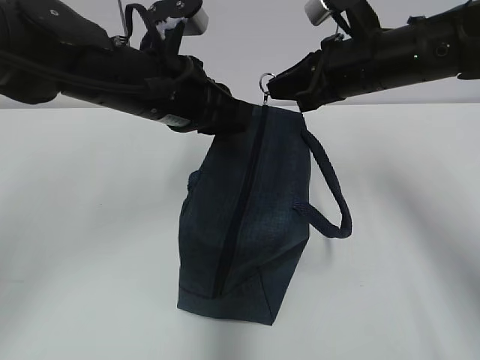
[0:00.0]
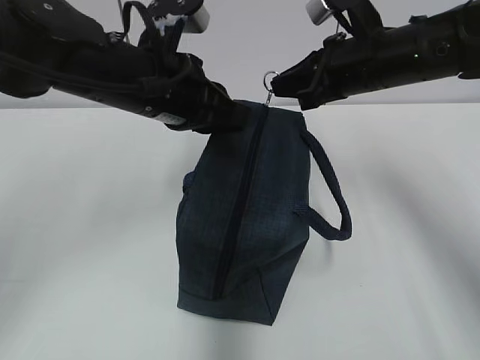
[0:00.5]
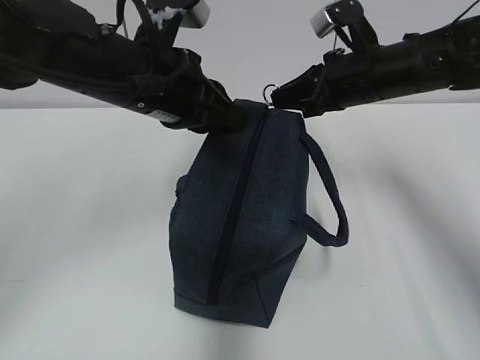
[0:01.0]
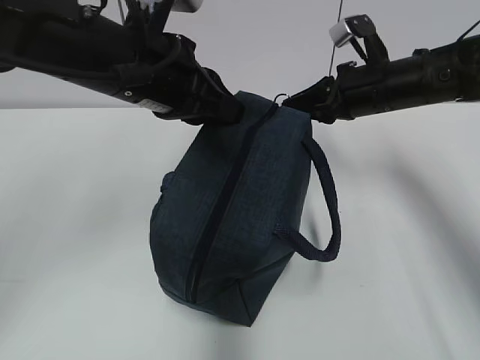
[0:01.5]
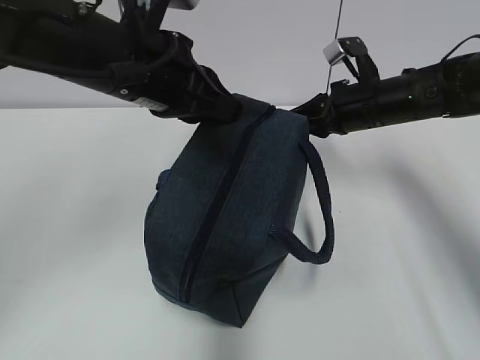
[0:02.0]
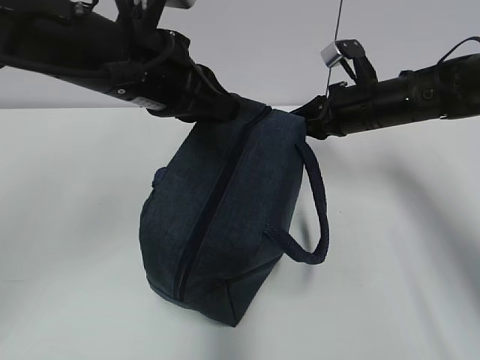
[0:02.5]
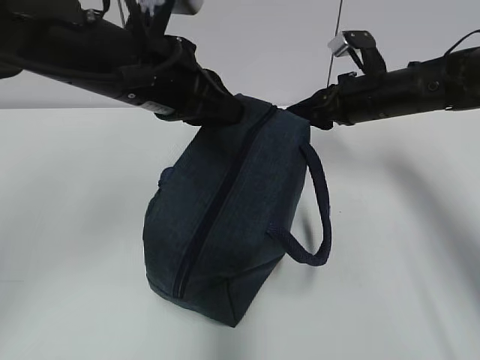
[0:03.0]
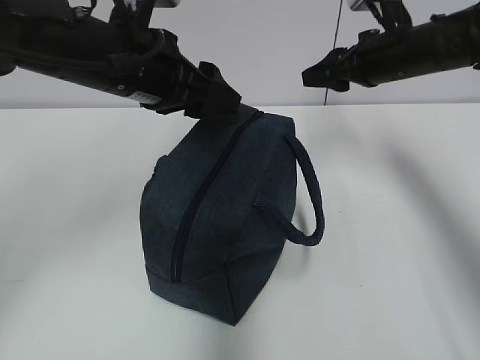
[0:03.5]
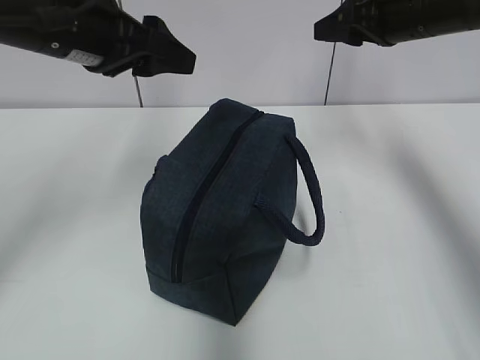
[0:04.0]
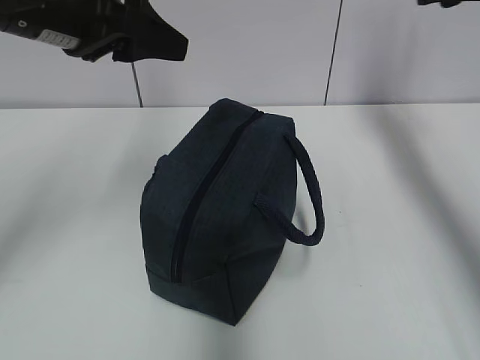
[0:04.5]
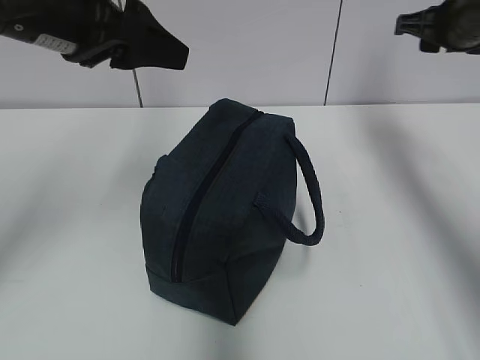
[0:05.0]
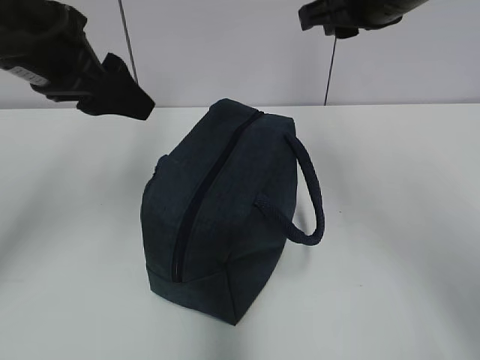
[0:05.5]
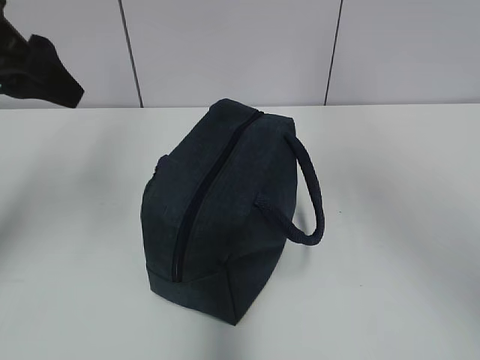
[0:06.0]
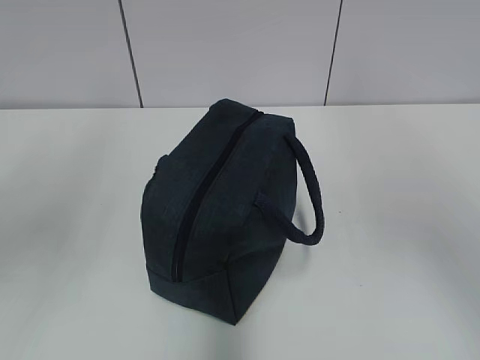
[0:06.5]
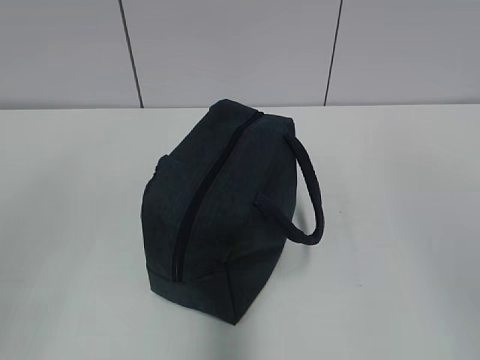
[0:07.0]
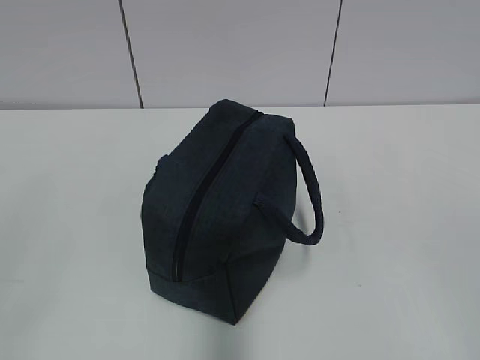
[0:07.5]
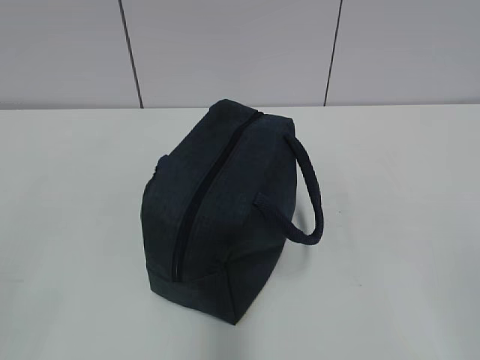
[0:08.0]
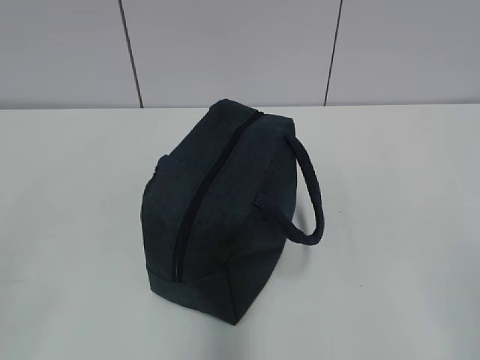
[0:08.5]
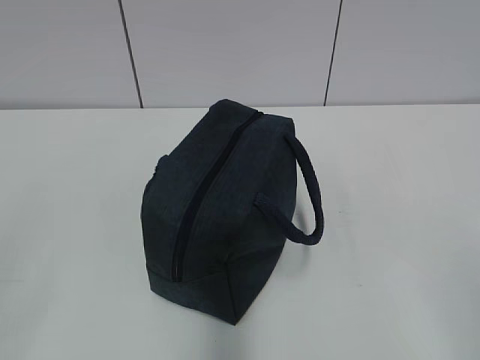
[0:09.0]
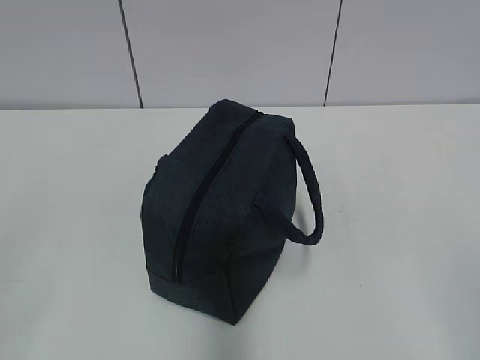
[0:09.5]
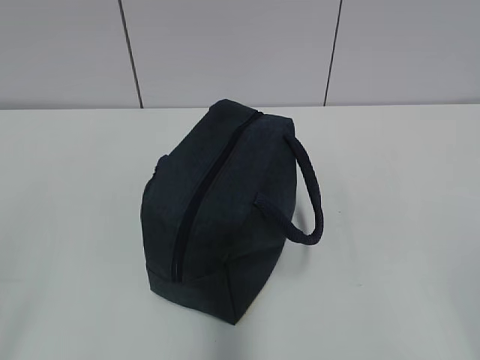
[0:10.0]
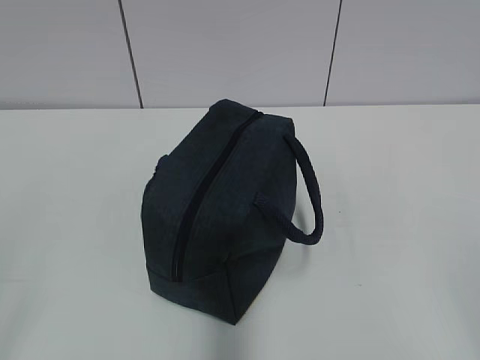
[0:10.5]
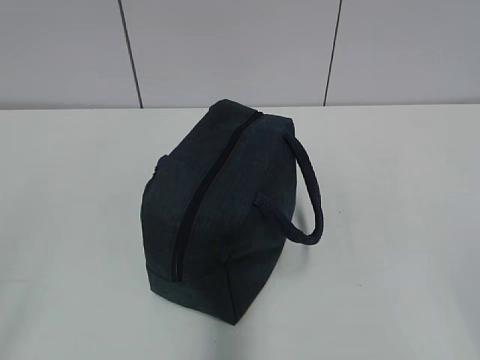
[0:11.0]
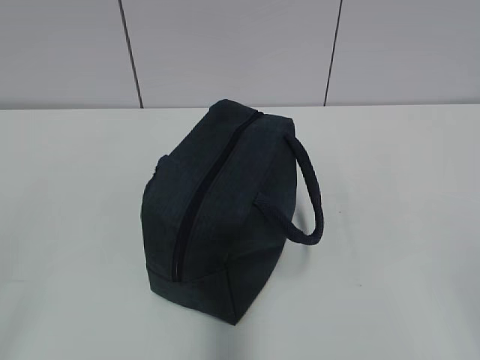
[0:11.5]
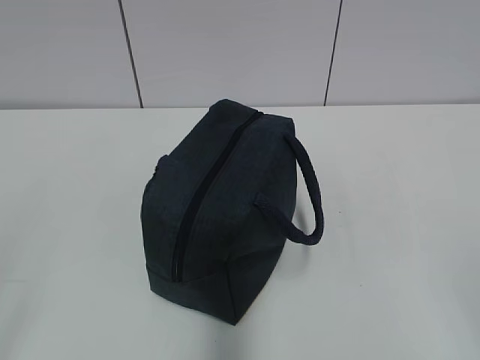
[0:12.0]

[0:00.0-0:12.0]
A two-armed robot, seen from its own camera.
Step, 0:00.0 to 0:02.5: Pull the zipper with your right hand.
0:00.0 to 0:02.0: The right gripper travels downward by some 10 cm.
0:02.0 to 0:04.0: The left gripper goes about 5 cm to the left, and opens its fingers. Meanwhile the right gripper is displaced upward by about 10 cm, and opens its fingers.
0:04.0 to 0:06.0: The left gripper moves to the left, roughly 5 cm, while the right gripper moves backward and upward, approximately 20 cm.
0:06.0 to 0:08.0: The left gripper travels backward by roughly 30 cm.

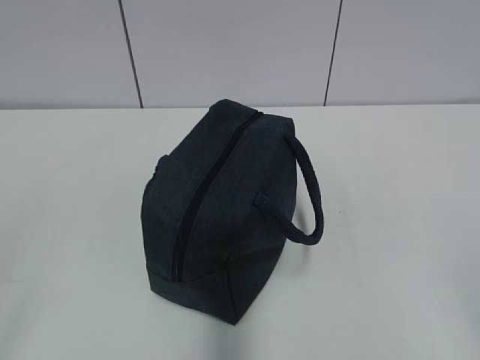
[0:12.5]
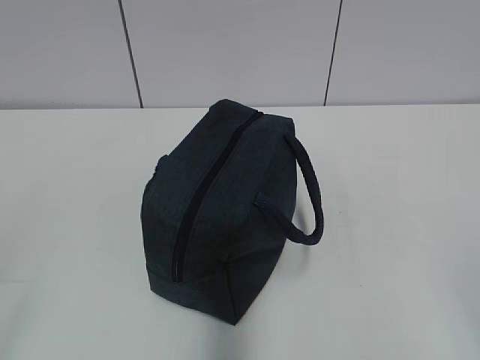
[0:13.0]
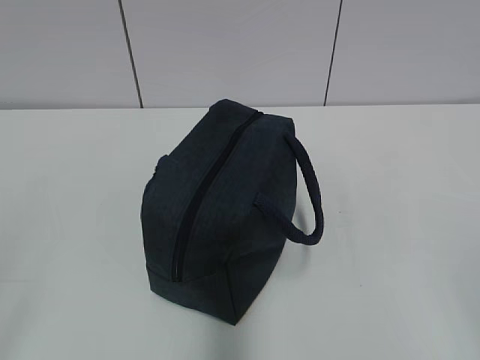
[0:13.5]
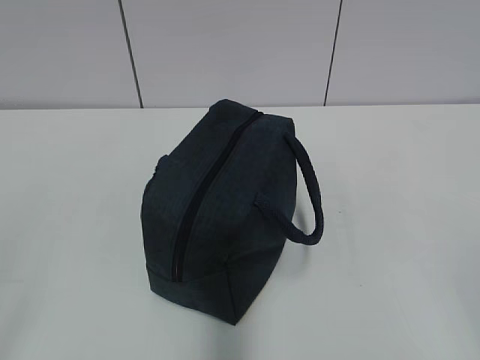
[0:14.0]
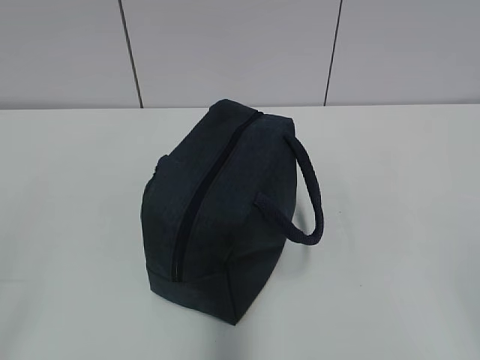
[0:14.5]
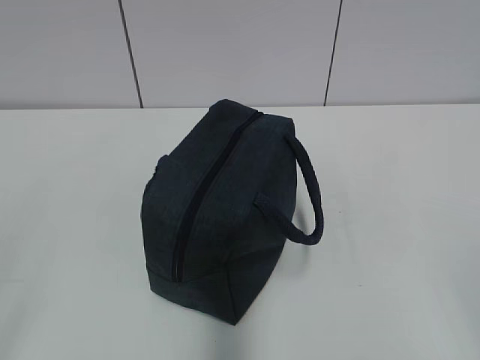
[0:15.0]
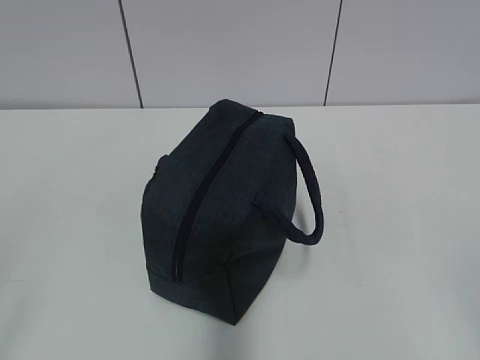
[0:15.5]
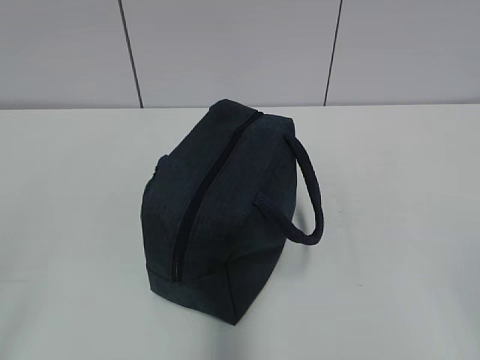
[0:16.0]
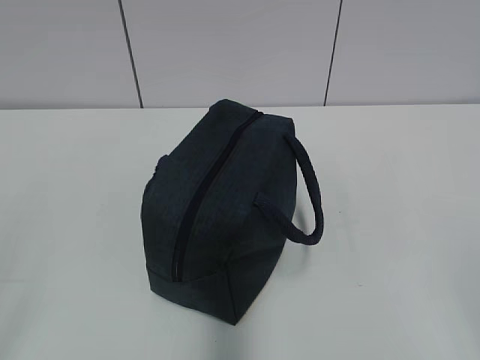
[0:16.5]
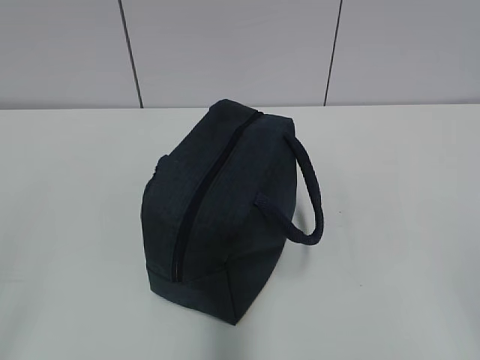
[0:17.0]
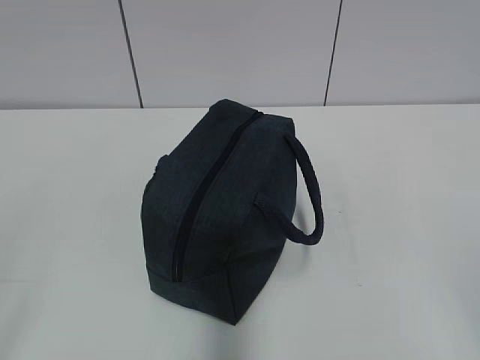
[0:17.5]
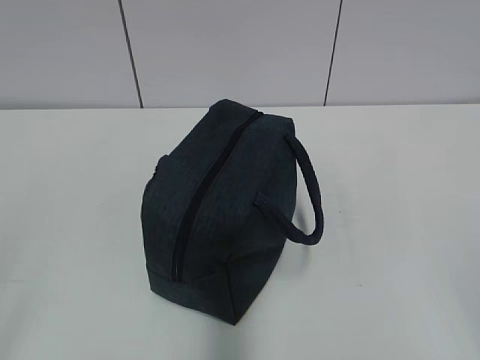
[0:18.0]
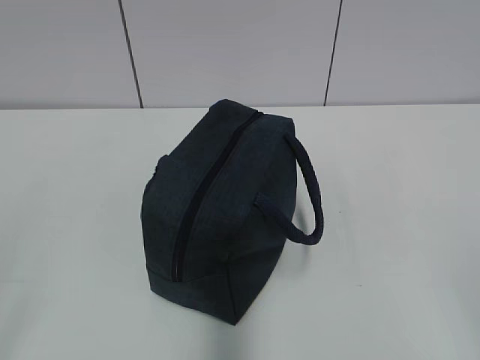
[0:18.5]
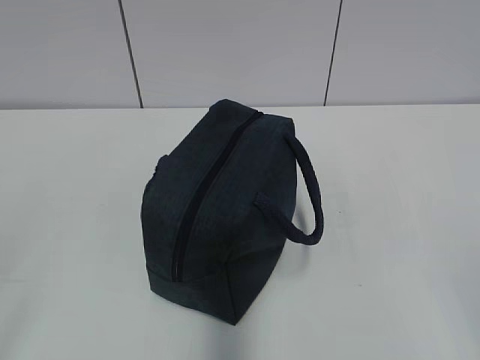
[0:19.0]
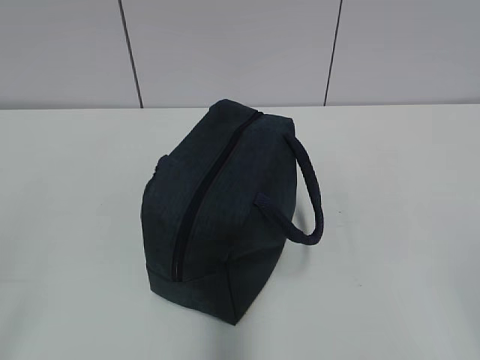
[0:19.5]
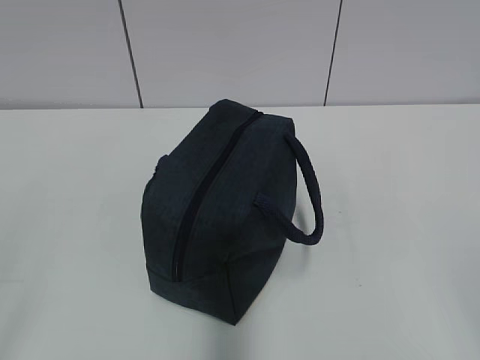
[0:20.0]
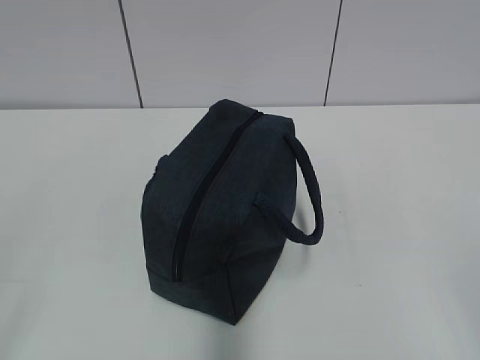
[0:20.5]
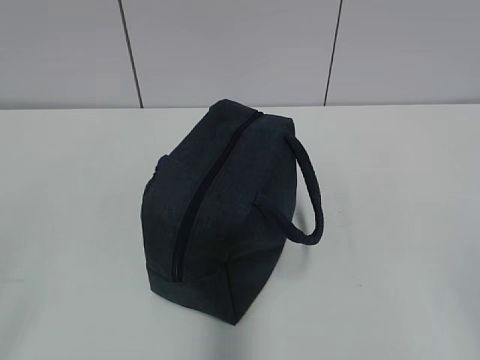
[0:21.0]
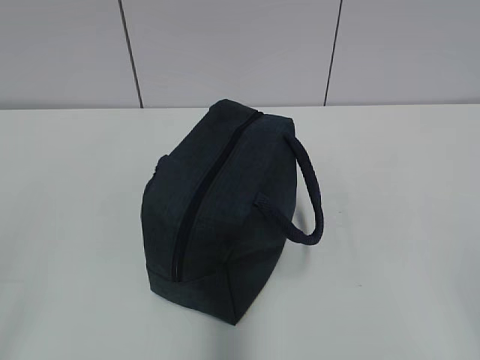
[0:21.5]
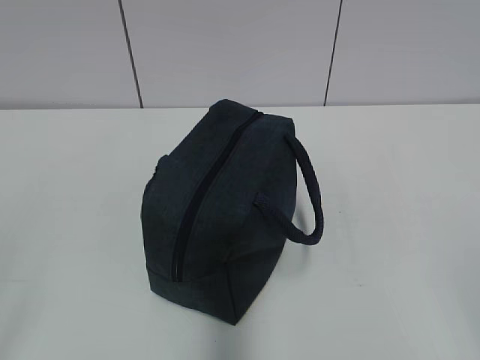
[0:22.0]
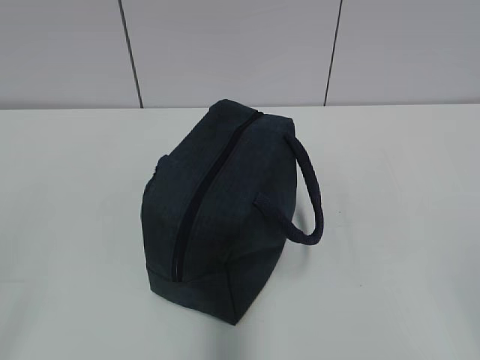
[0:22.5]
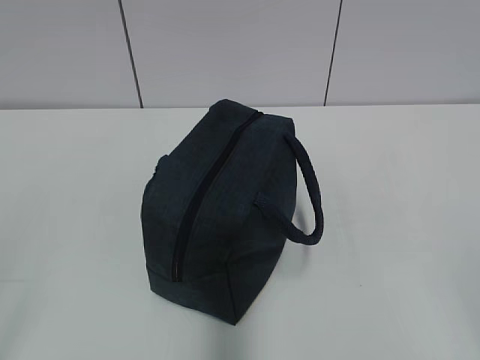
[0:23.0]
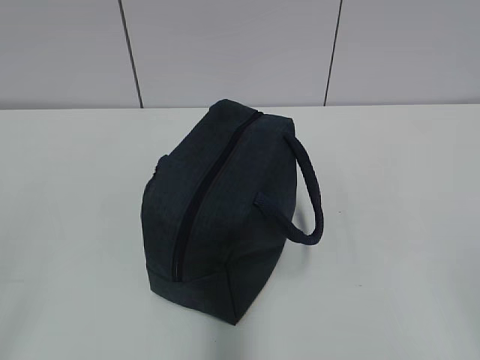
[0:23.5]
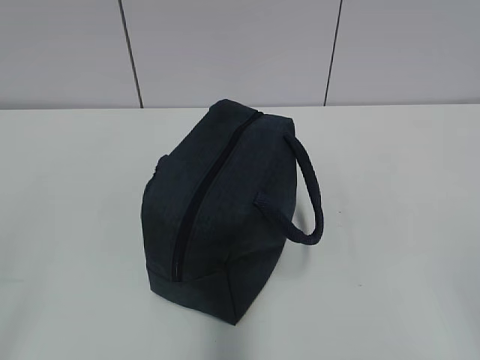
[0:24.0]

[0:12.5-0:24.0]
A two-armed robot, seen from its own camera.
0:12.5 to 0:24.0: Both grippers stay put.

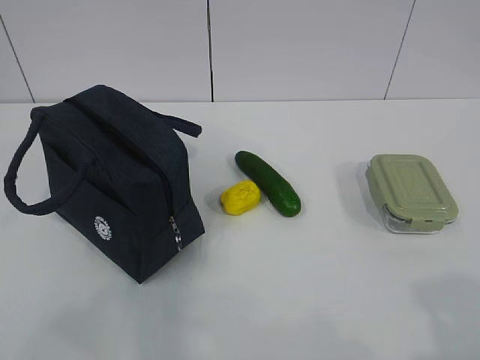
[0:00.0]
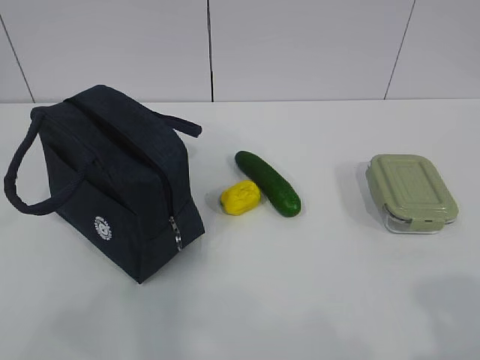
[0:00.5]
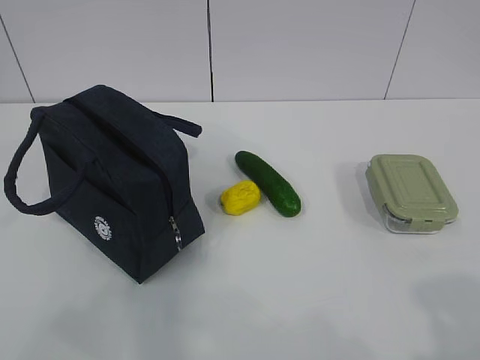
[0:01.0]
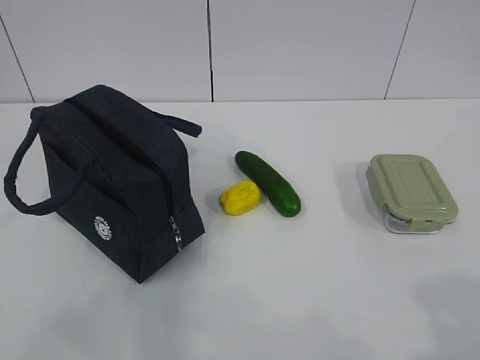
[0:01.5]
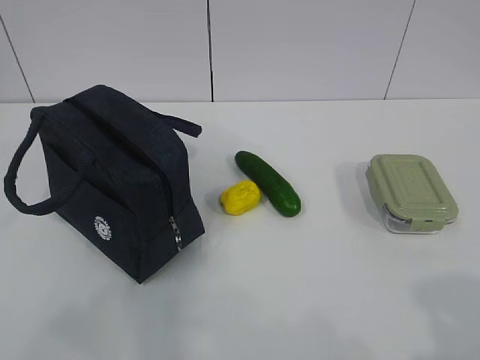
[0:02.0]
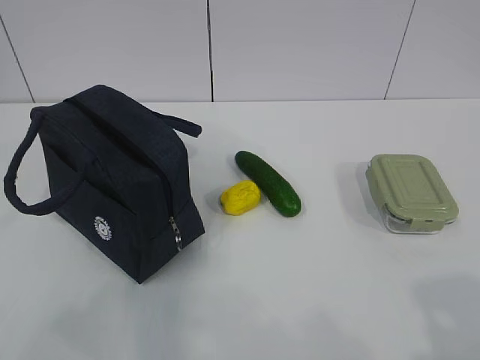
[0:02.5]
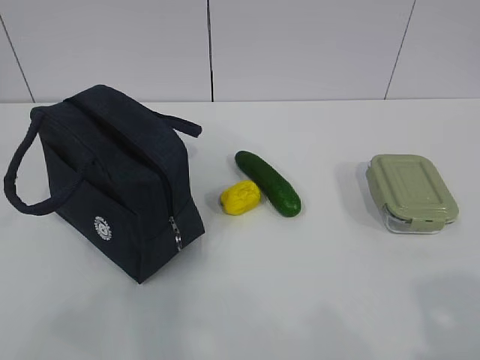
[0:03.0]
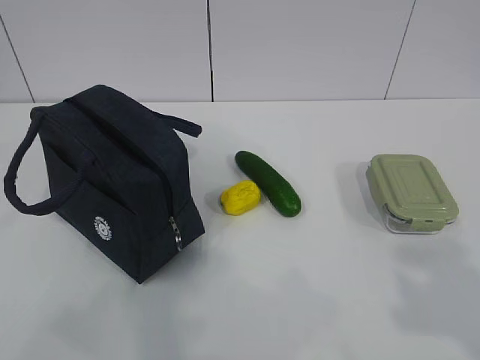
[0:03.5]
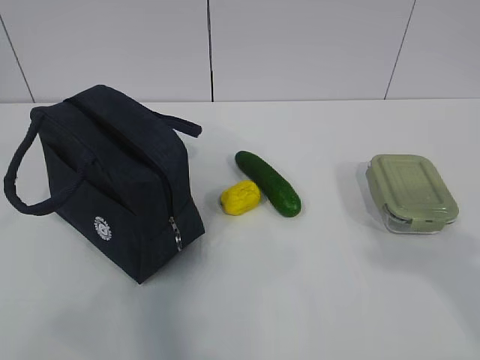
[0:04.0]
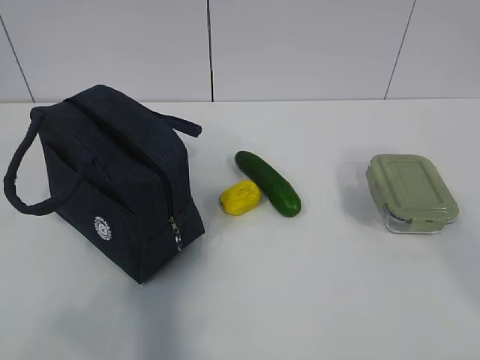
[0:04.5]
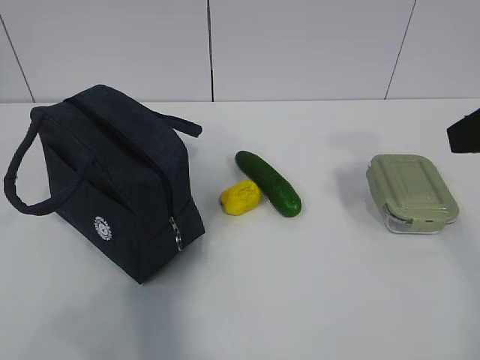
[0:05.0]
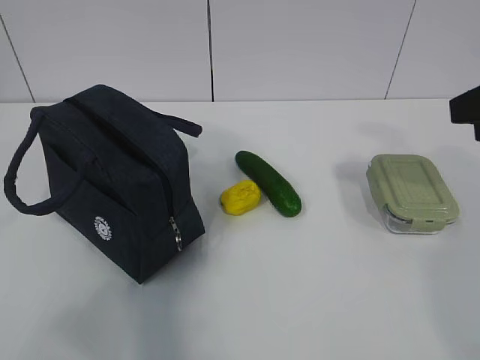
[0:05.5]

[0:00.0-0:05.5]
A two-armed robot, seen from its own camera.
0:03.5 to 0:05.5: The right gripper is displaced forward by approximately 20 cm.
